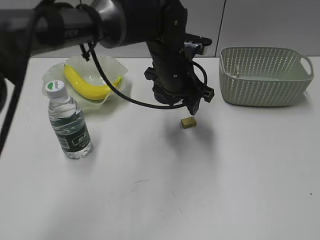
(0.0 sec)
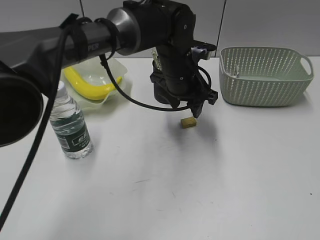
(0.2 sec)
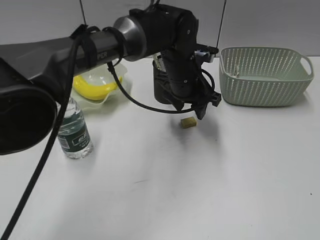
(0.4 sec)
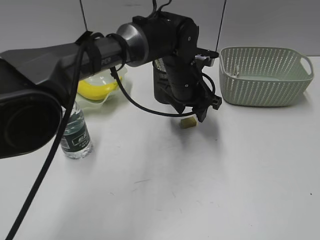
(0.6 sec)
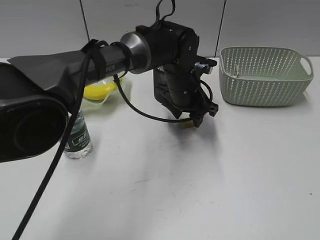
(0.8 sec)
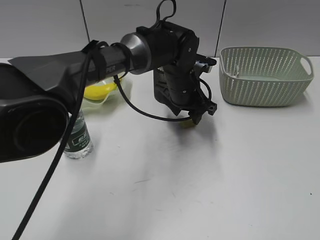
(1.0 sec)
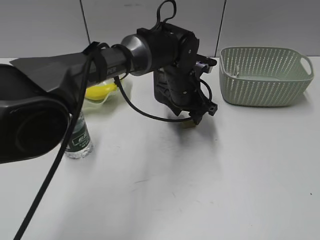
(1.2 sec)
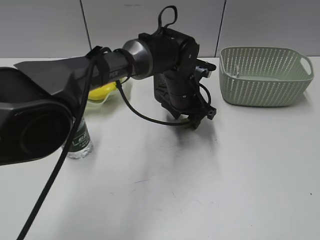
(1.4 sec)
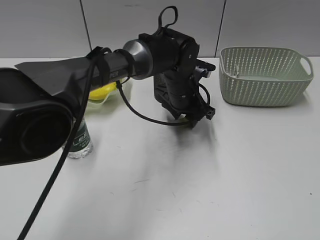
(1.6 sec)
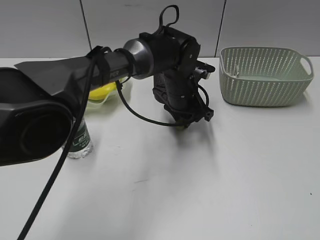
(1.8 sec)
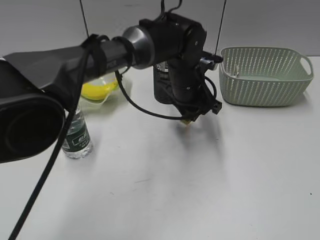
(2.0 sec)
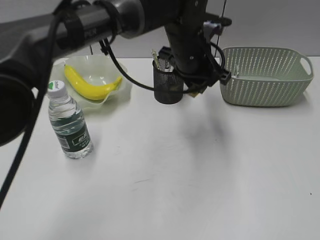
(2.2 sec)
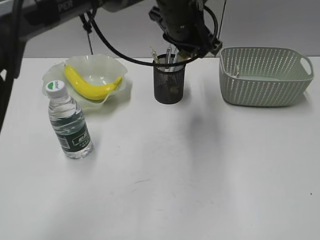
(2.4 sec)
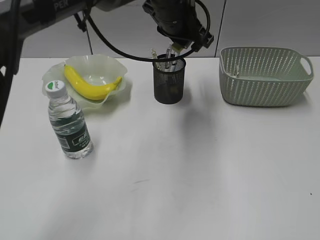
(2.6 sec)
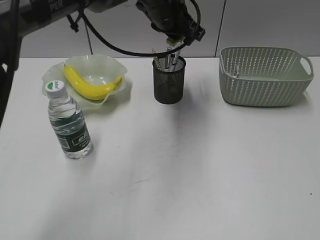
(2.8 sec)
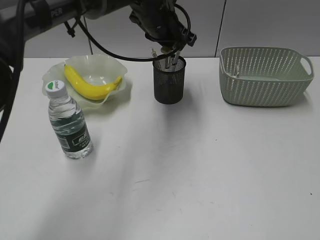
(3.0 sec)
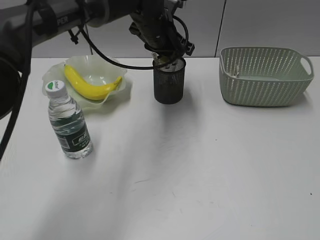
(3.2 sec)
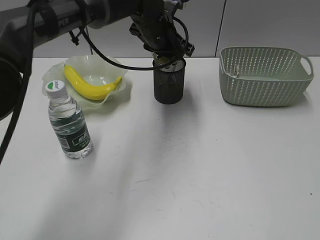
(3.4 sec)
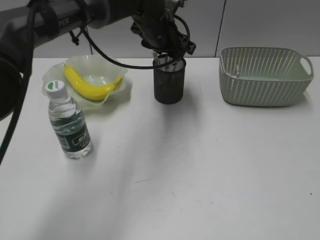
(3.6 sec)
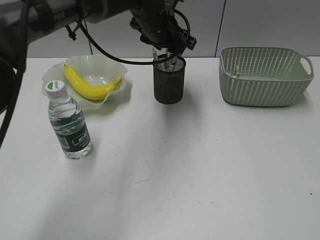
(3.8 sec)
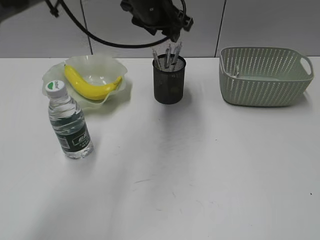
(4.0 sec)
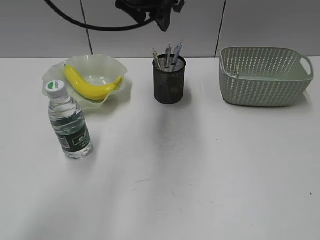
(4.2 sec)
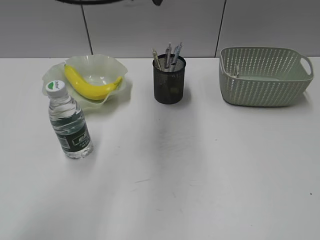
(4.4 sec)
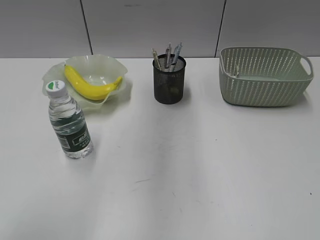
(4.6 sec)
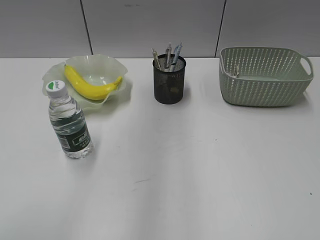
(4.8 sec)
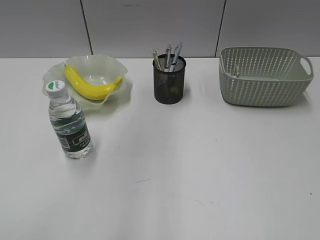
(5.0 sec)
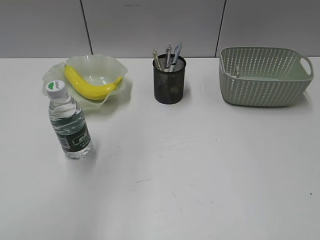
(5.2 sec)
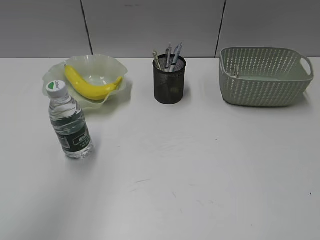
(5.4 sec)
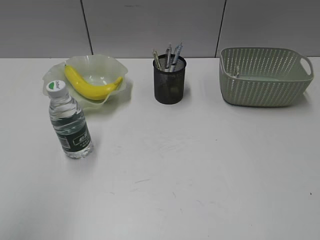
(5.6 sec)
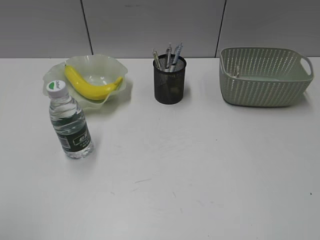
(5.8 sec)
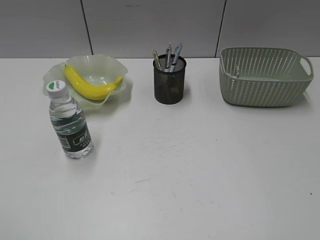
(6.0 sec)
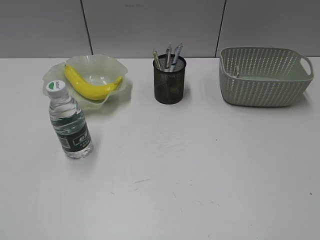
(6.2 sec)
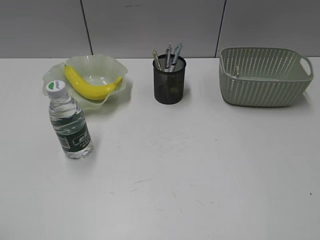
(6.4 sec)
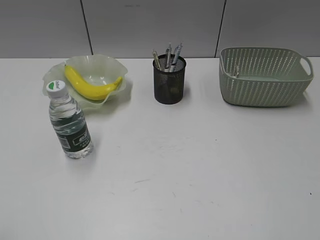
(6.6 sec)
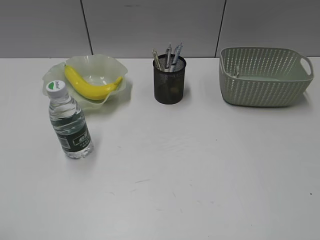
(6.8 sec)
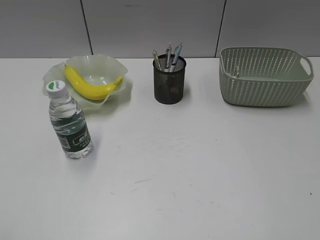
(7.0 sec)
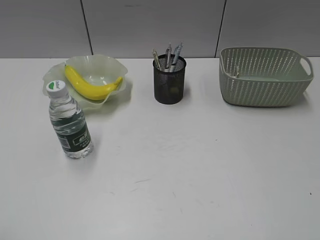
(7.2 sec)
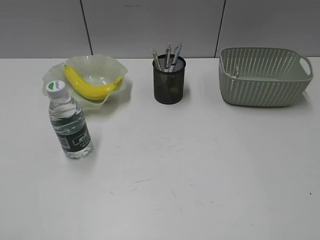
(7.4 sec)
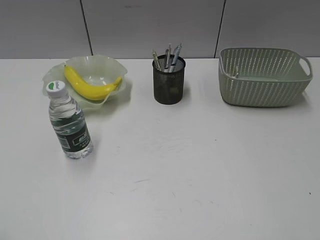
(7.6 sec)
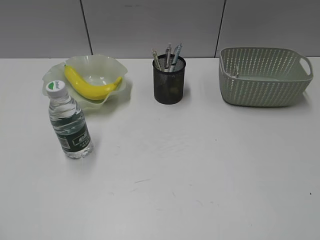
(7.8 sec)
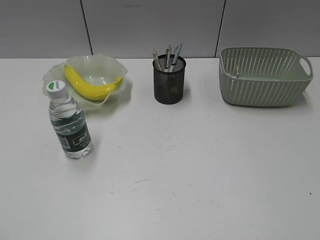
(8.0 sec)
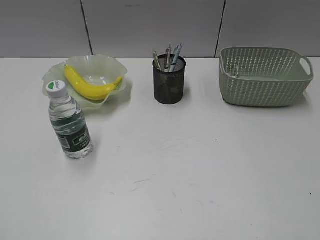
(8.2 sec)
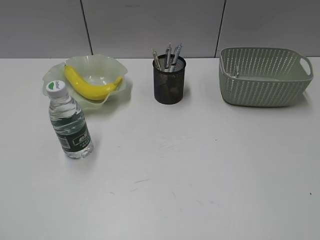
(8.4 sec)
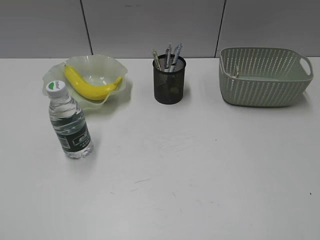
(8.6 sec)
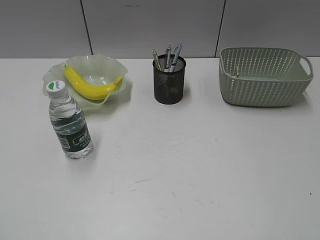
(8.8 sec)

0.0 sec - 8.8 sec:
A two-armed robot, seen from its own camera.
Step, 1.8 sec - 3.6 sec: Place the eraser in pen holder with left gripper.
0.0 sec - 1.4 sec: The left gripper shifts approximately 5 cm downward.
1.4 sec - 3.0 sec: The left gripper shifts roughly 15 cm upward, and closes.
3.0 sec - 4.4 sec: The left gripper moves upward and backward, about 15 cm, and opens.
4.4 sec - 5.8 sec: The left gripper shifts roughly 40 cm backward and to the left.

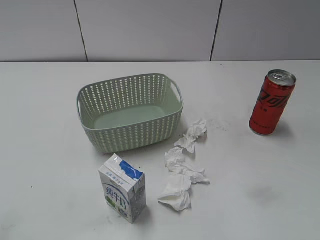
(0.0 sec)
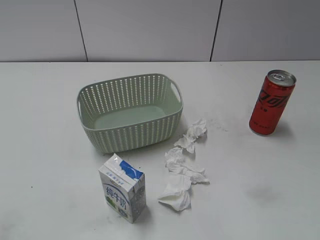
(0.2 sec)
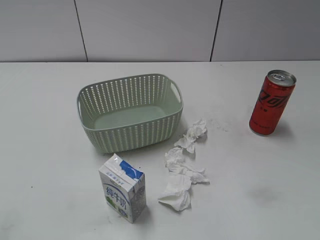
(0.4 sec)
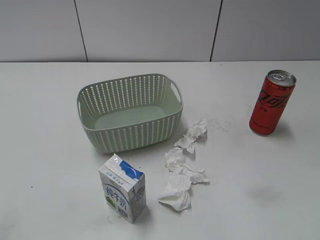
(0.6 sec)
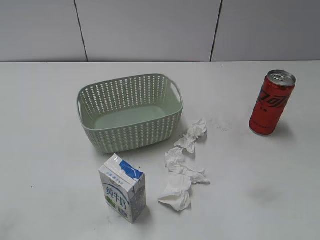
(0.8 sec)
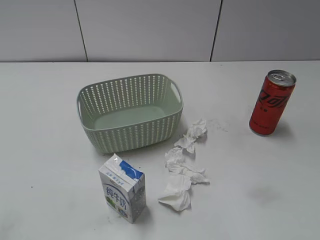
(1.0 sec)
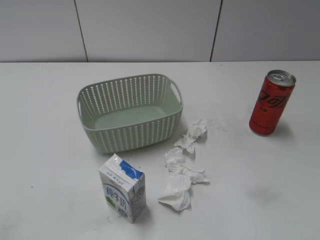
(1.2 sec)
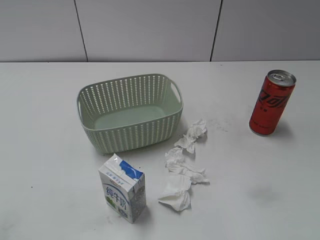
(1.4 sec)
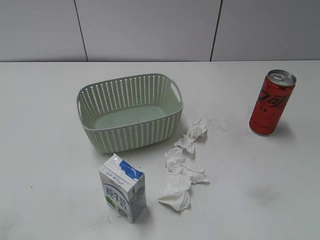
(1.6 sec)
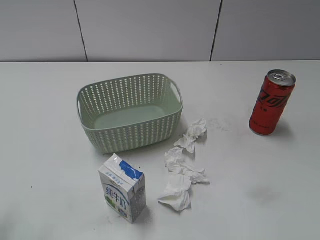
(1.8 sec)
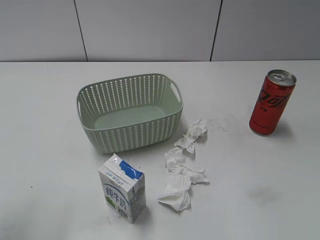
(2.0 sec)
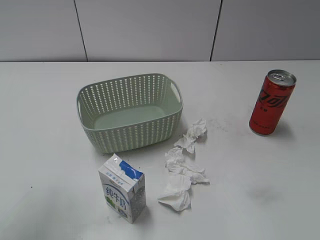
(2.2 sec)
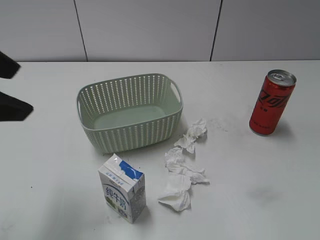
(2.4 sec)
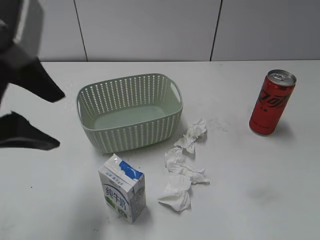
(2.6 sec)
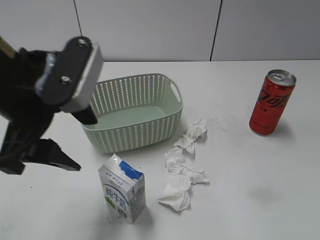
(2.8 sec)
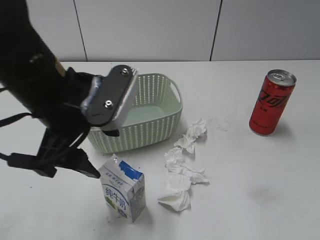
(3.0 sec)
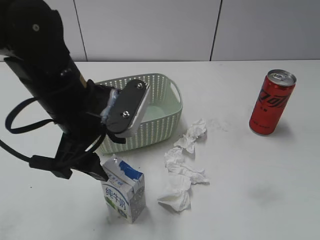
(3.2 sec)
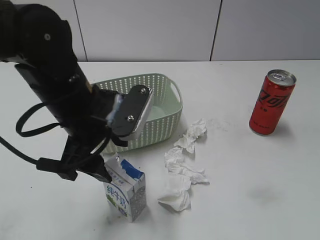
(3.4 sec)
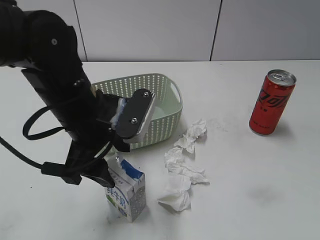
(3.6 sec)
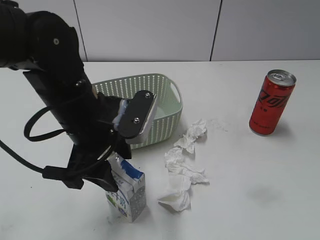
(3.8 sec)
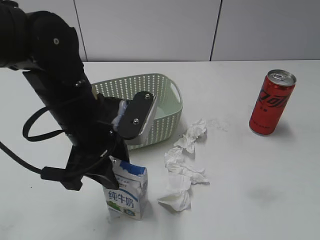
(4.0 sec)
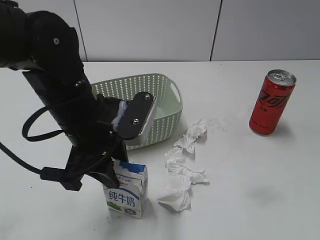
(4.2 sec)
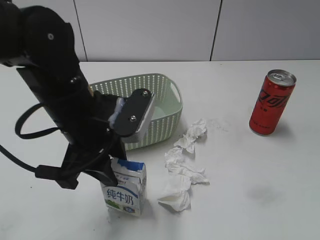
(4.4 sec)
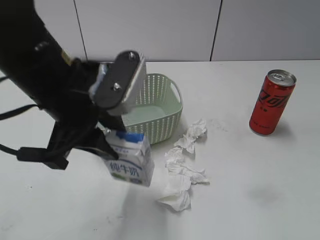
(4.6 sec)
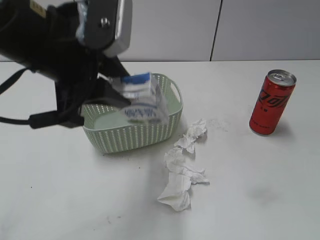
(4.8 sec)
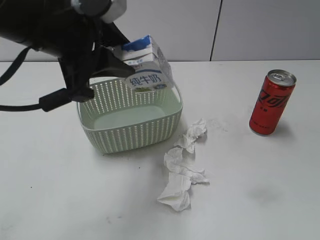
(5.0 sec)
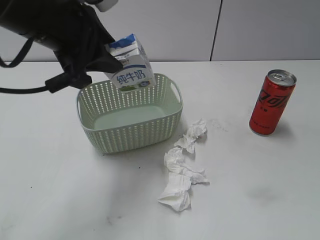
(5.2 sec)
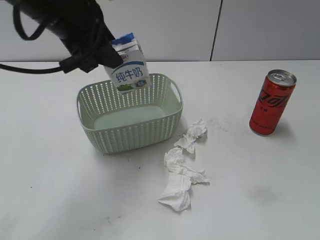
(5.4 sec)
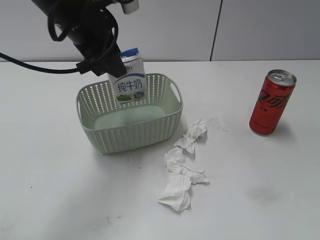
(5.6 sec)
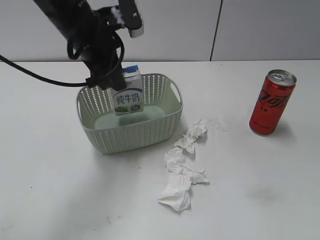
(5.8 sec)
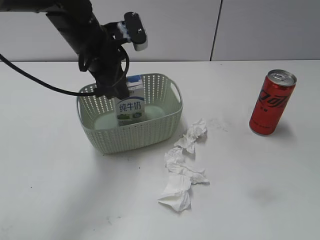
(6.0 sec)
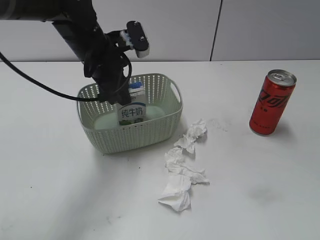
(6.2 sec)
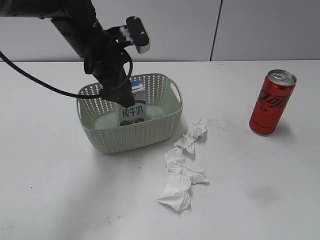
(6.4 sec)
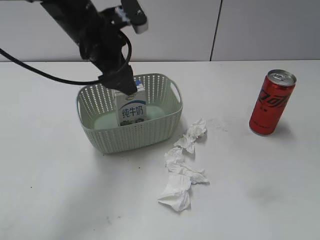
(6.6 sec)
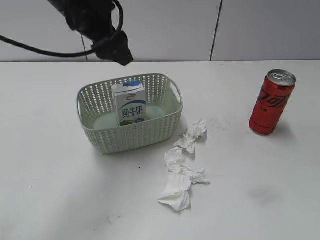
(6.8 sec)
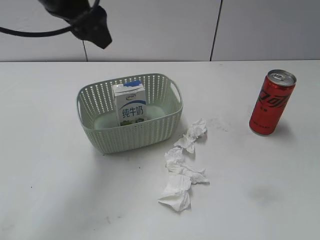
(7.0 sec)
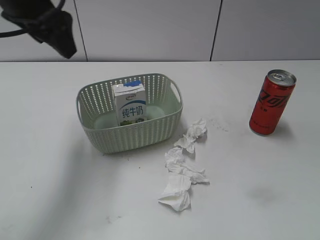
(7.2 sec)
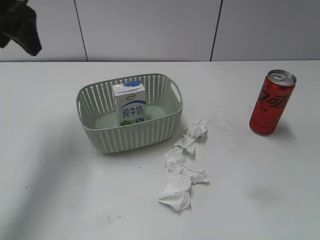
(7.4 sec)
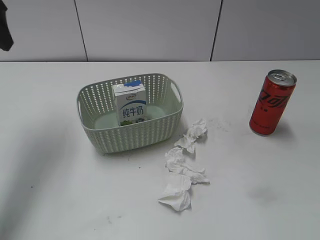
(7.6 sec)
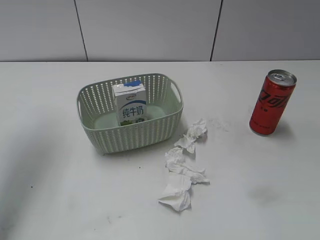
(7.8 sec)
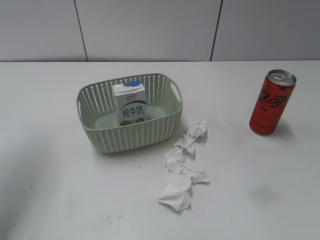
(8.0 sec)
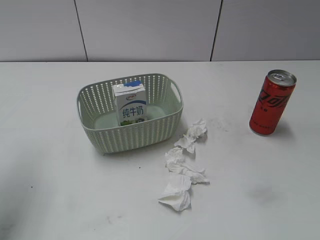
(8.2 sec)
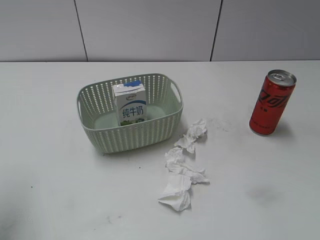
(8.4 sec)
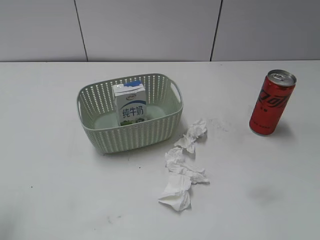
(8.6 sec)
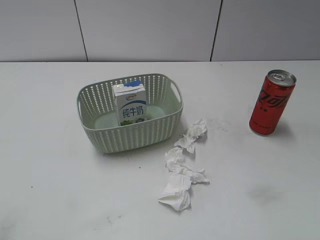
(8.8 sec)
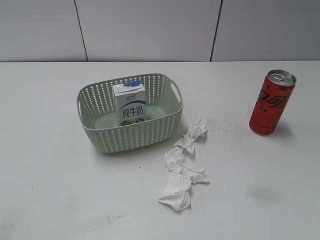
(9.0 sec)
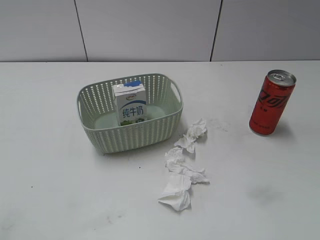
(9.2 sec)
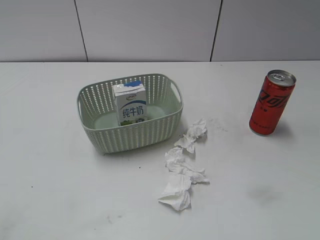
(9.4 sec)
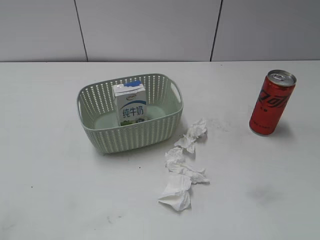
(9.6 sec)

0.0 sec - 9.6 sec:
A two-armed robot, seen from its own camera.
Step, 2.4 sec - 4.0 sec: Grasp the milk with left gripper.
Step, 4.2 sec - 6.8 sec: Place the milk in the basket with left gripper.
1.6 sec - 3.2 sec: The left gripper is displaced to the right, forward and downward by roughly 30 cm.
3.2 sec - 4.8 sec: The left gripper goes some 10 cm upward, and closes.
4.8 sec - 6.4 sec: The left gripper goes approximately 15 cm forward and downward, and opens its fingers.
6.4 sec - 8.0 sec: The left gripper goes approximately 25 cm to the left and upward.
8.0 sec - 9.6 sec: The left gripper heads backward, covering roughly 30 cm.
